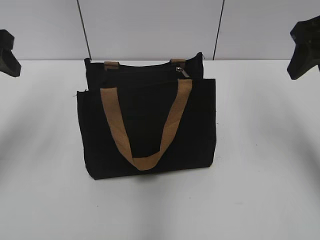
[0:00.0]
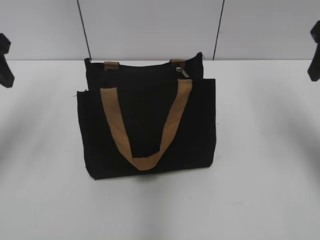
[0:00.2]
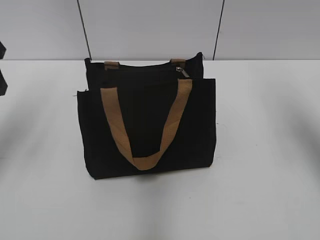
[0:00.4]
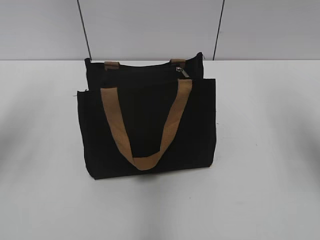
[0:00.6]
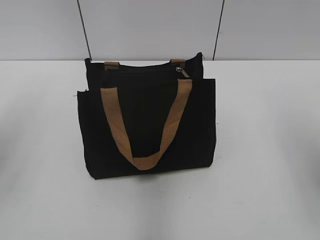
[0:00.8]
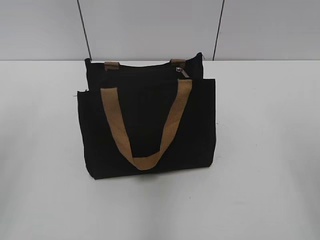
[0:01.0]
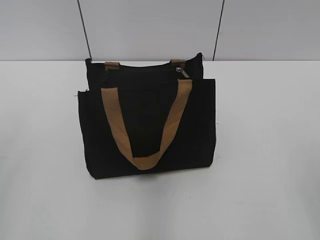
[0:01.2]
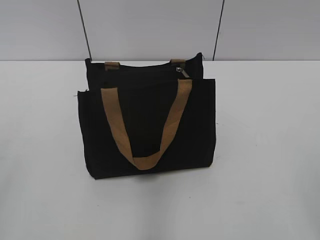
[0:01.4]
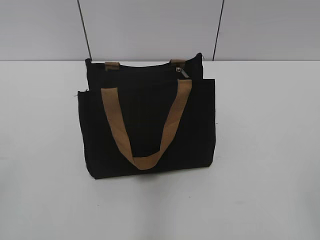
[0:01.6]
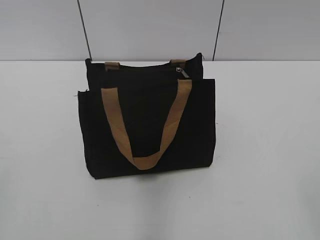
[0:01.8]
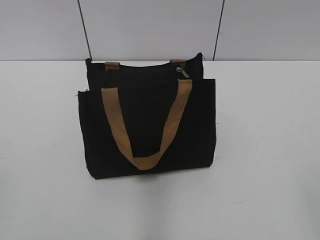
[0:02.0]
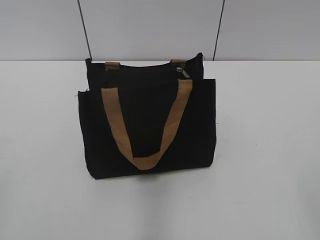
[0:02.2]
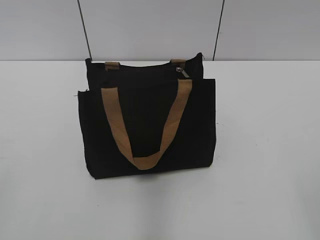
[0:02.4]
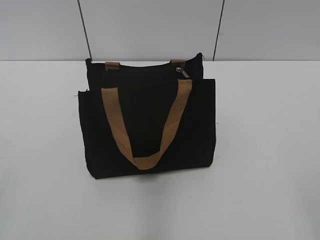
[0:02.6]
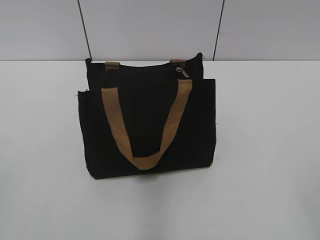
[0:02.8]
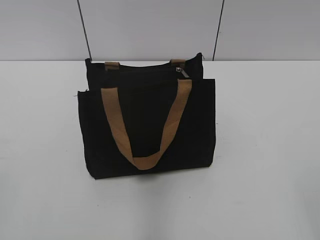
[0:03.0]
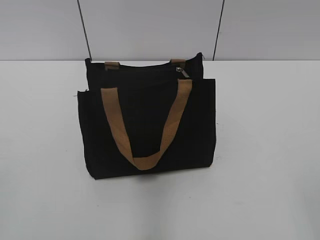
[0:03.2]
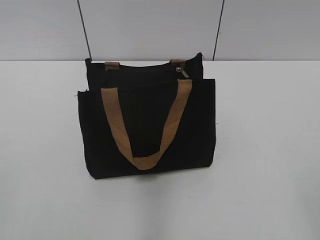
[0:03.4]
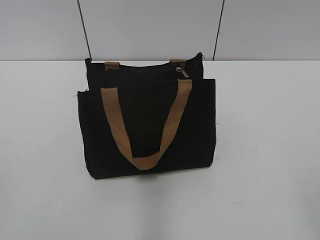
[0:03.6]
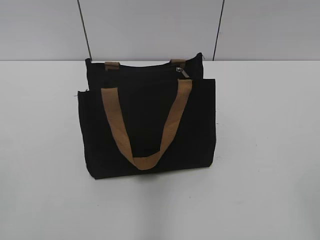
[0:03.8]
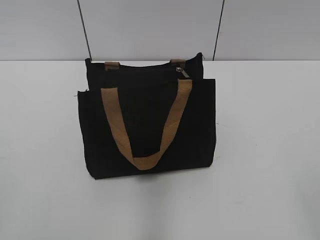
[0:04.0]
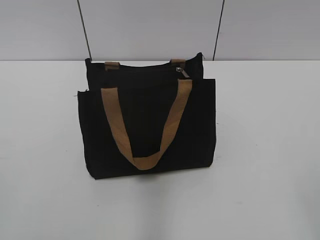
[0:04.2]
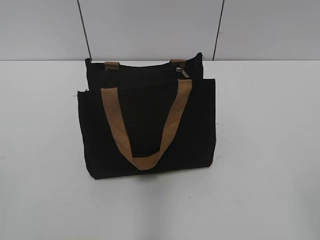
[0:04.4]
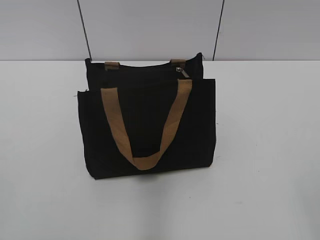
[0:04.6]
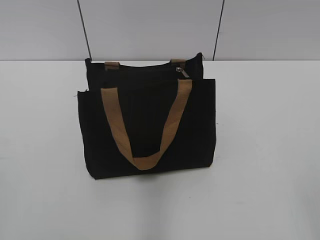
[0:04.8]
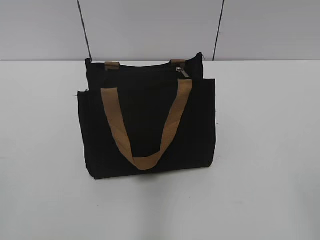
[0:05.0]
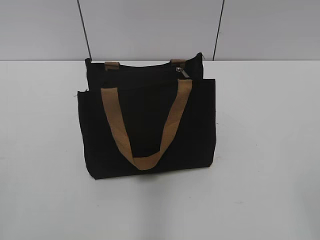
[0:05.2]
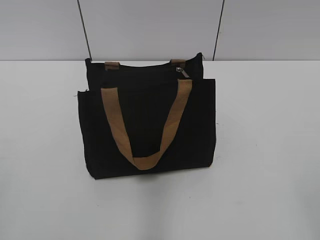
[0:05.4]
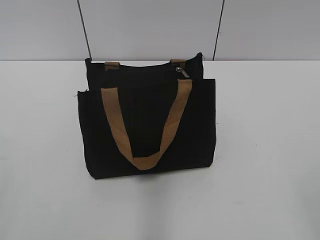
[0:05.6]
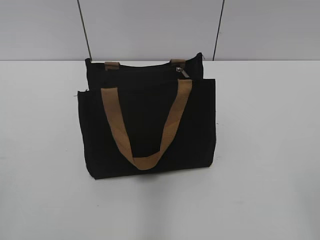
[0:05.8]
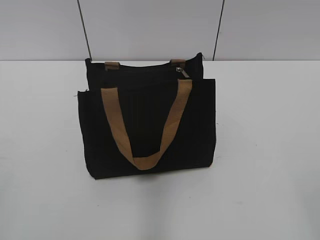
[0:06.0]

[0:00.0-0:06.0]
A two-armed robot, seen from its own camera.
0:00.0 to 0:01.6: The grippers both shift backward by about 25 cm.
0:03.0 to 0:04.4: Both grippers stay put.

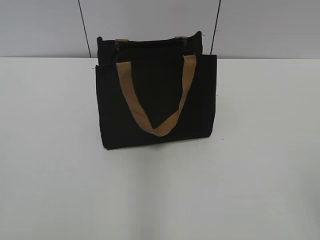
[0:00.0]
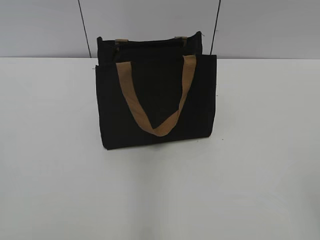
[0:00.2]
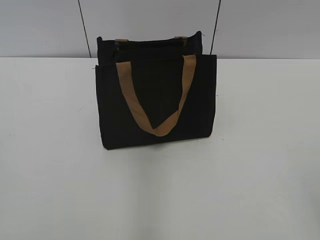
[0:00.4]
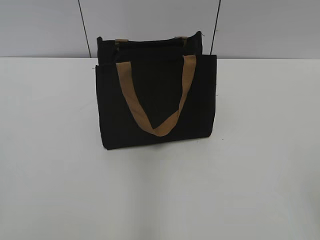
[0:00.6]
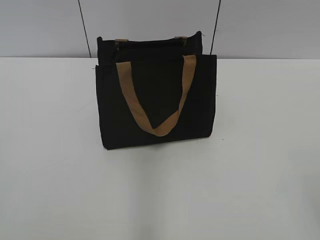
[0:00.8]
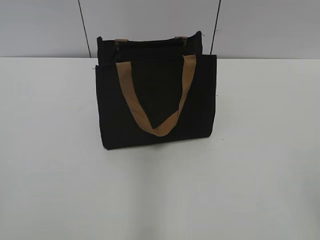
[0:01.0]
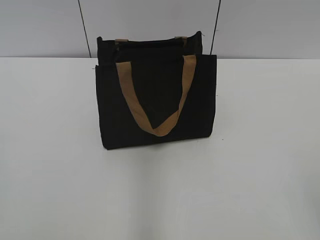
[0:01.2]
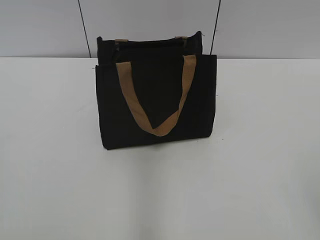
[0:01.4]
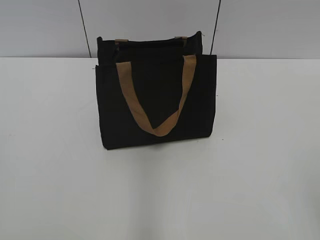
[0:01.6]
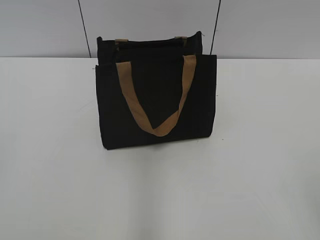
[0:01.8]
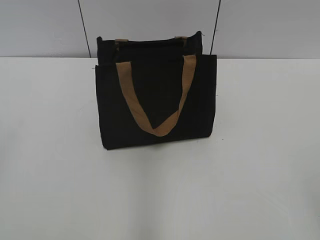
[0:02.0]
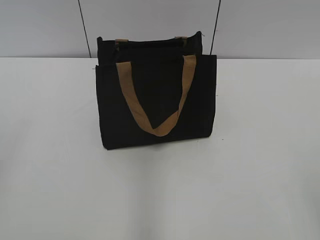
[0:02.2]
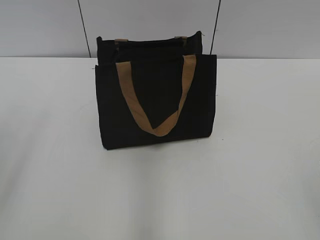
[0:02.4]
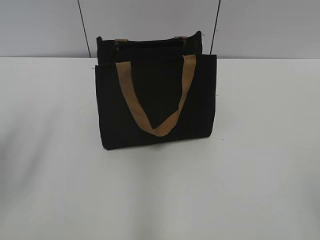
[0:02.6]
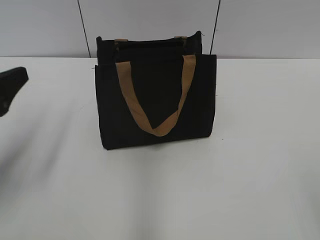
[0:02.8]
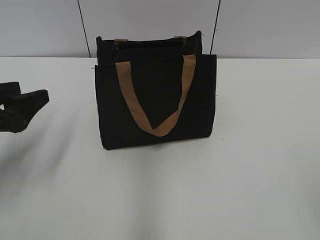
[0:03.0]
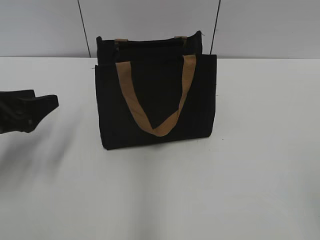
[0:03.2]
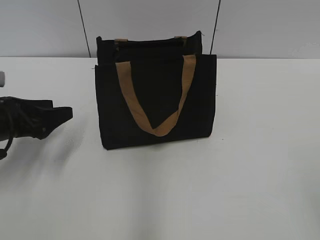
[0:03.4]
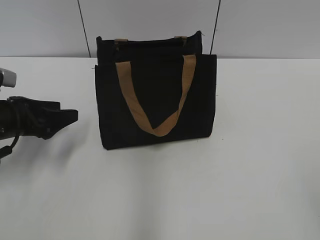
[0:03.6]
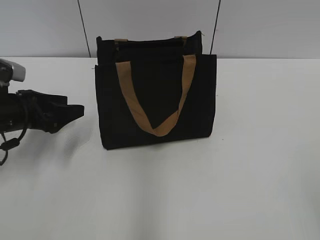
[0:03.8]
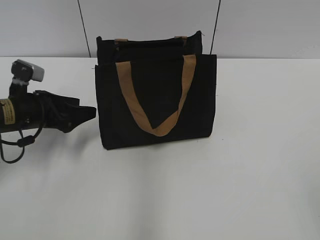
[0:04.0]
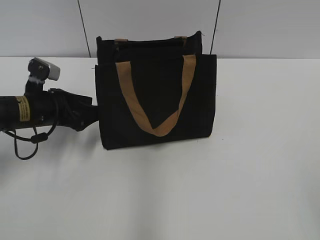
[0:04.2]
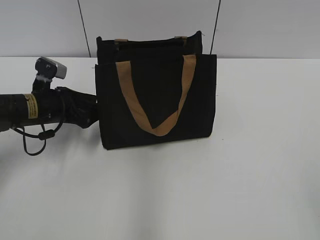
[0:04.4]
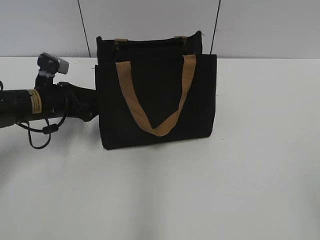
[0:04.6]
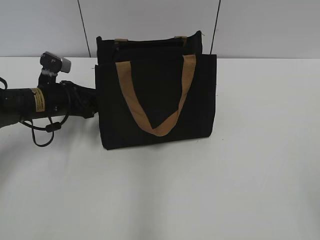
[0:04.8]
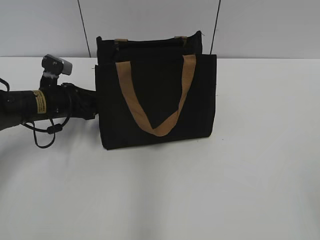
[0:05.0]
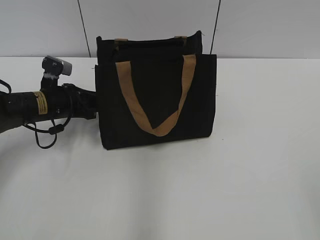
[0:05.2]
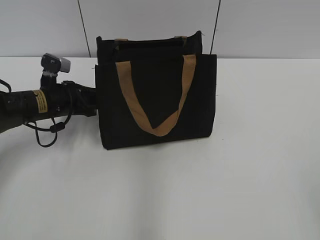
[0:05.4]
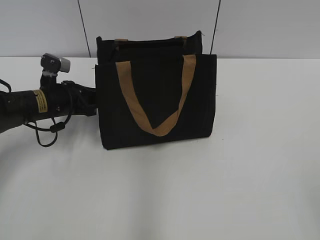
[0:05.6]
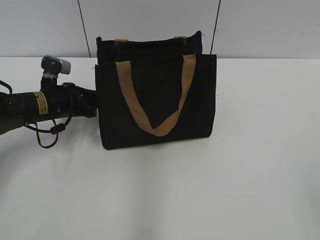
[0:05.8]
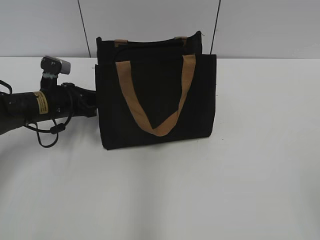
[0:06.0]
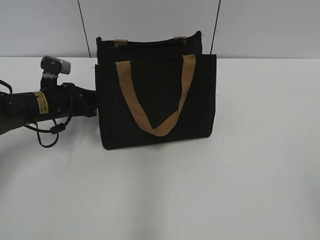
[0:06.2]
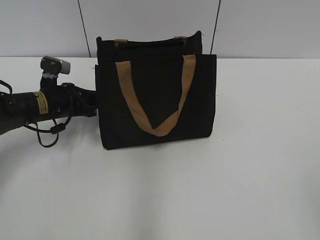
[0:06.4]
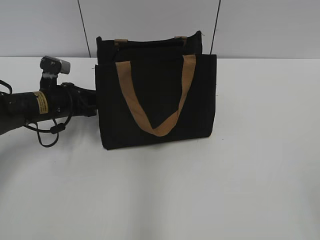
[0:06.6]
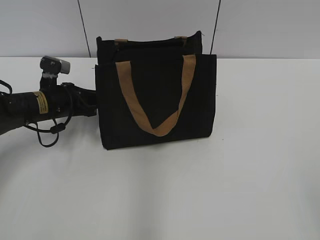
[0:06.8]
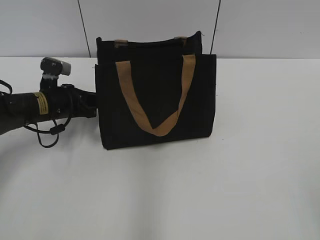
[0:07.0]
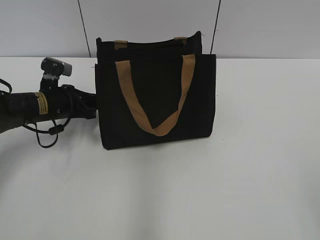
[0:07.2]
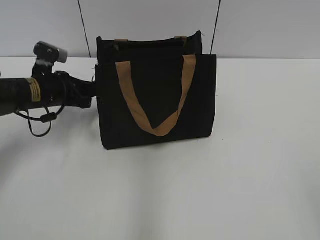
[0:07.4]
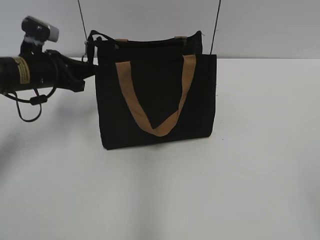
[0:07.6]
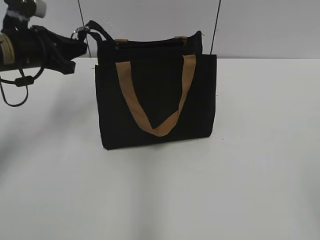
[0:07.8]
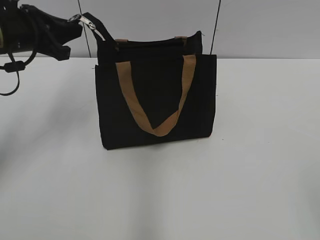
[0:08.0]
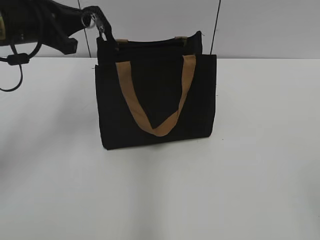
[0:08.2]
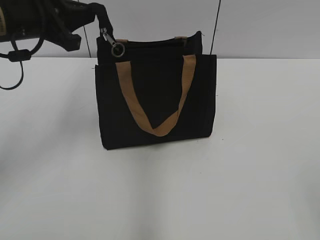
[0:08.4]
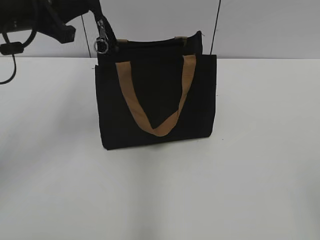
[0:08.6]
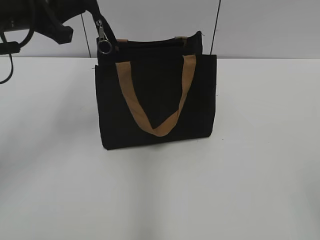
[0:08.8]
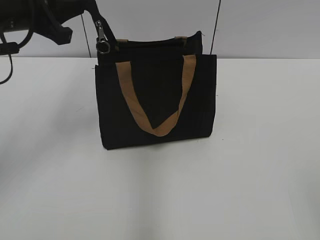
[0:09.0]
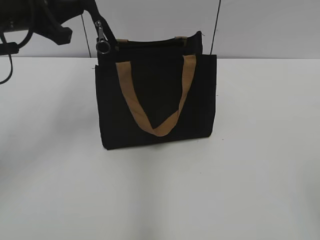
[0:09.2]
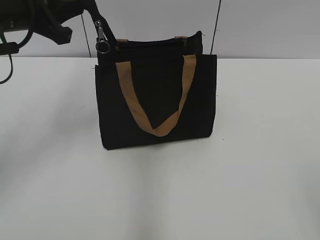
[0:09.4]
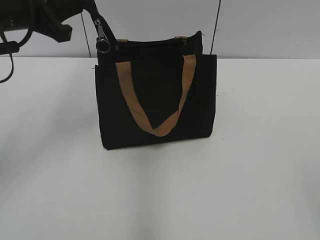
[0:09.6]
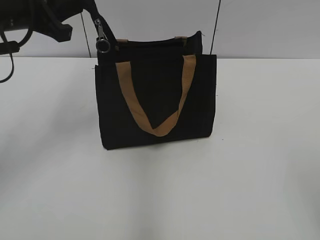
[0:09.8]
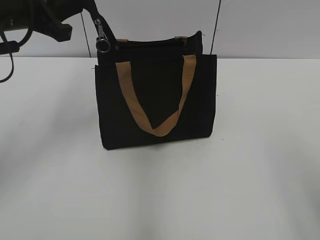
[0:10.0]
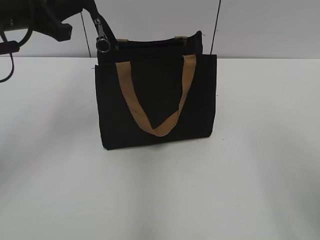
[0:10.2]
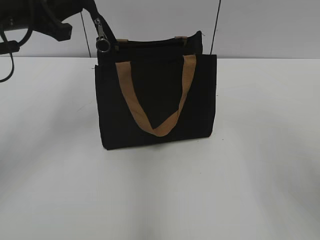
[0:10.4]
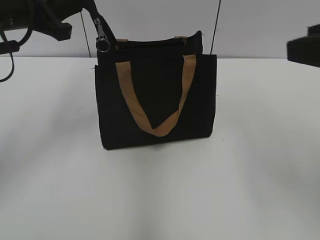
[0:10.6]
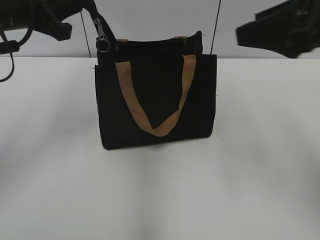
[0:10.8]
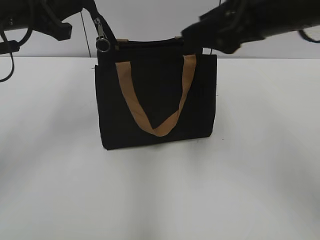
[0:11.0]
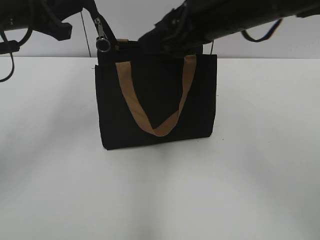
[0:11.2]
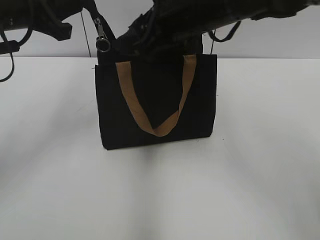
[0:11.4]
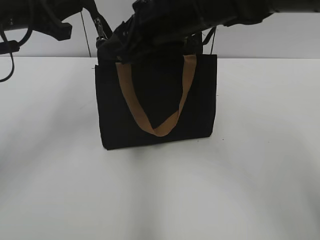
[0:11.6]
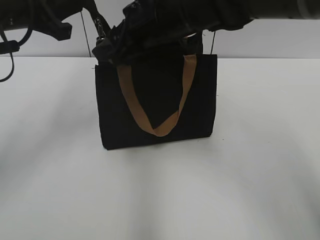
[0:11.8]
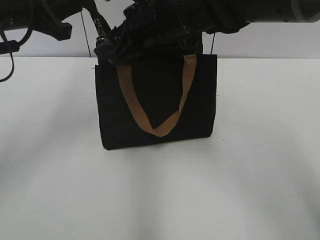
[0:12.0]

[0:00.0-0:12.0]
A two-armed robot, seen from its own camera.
0:01.6 to 0:03.0: The left gripper heads forward and downward, covering approximately 25 cm, and opens up.
0:03.0 to 0:04.4: The left gripper shifts roughly 15 cm forward, downward and to the right.
0:04.4 to 0:06.0: The left gripper closes up.
0:06.0 to 0:07.6: The left gripper shifts approximately 5 cm upward.
0:07.6 to 0:09.0: The left gripper is displaced upward and backward by approximately 15 cm.
0:10.4 to 0:12.0: The right gripper travels to the left and forward by about 35 cm.

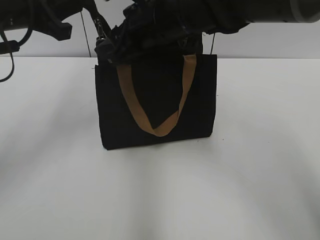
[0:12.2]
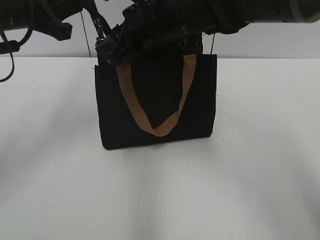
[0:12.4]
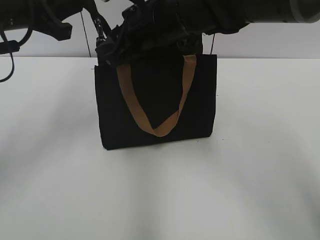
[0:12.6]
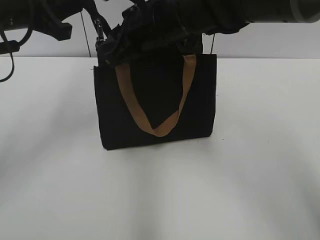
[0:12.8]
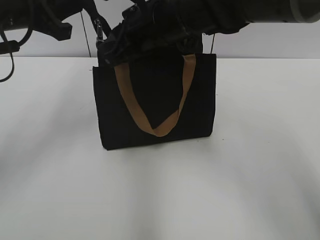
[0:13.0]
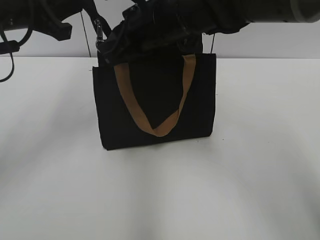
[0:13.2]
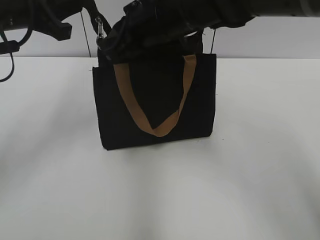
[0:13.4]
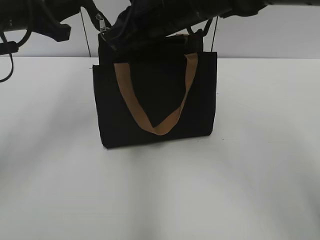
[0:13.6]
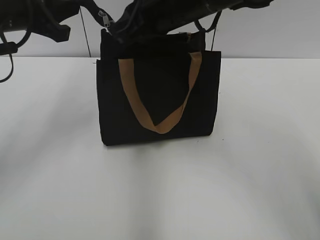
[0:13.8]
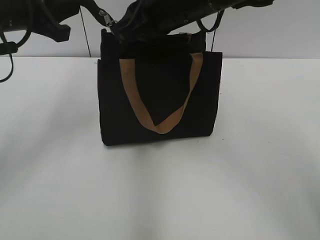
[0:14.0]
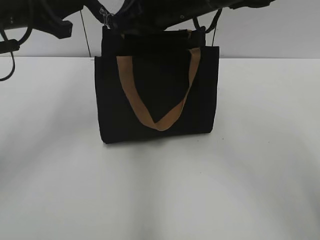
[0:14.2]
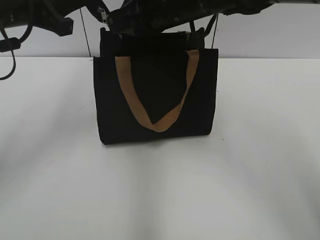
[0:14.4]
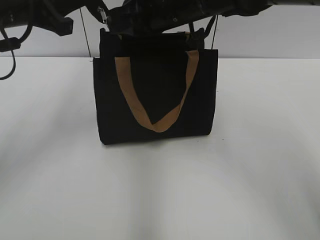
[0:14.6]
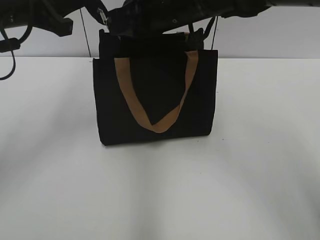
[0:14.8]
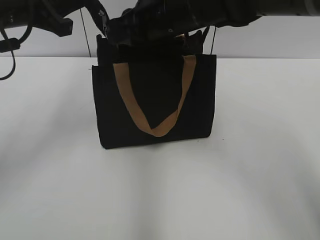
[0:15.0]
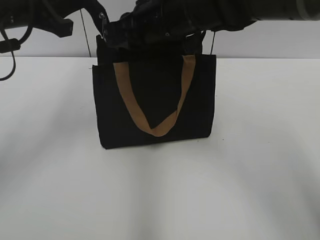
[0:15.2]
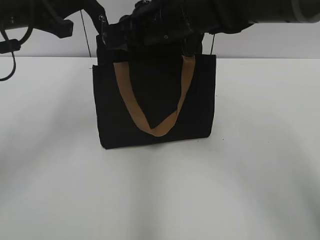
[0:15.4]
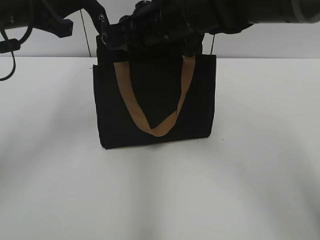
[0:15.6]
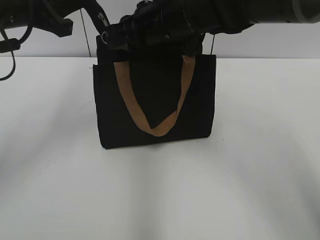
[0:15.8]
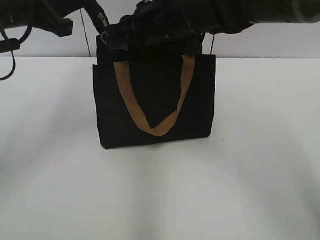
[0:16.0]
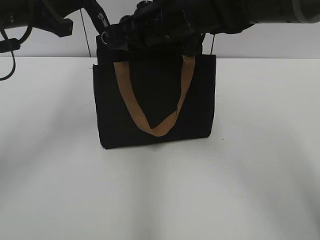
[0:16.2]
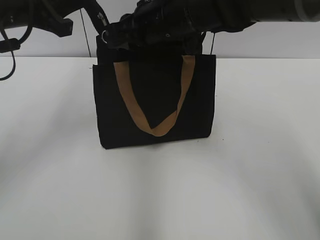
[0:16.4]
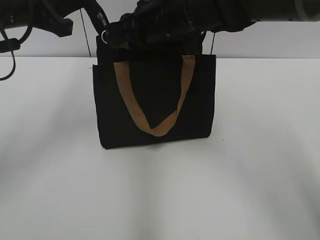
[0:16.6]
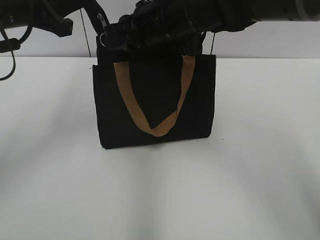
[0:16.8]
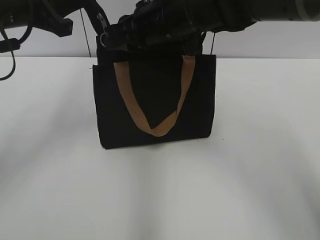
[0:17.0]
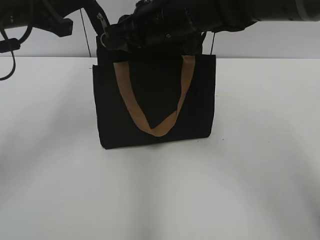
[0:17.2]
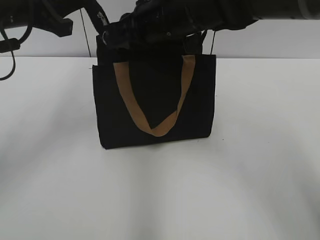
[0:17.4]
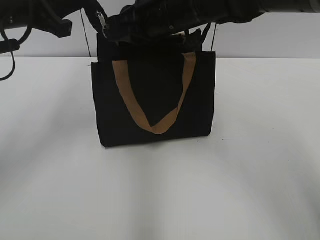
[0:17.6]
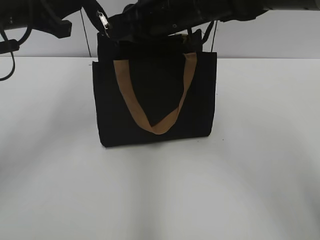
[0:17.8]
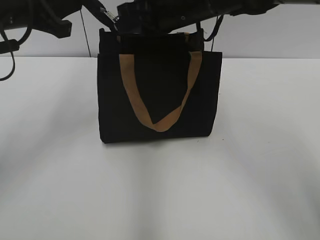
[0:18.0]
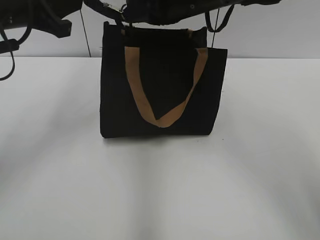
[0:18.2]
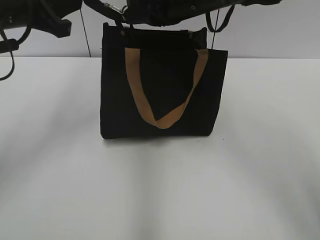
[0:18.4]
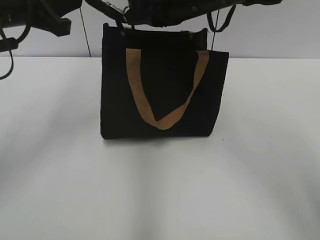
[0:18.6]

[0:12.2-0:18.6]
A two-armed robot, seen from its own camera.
0:12.2 to 0:13.8: The right gripper closes.
0:15.4 to 0:17.0: Both grippers stay about where they are.
0:17.0 to 0:18.6: The right gripper ends up some 5 cm from where it was.
